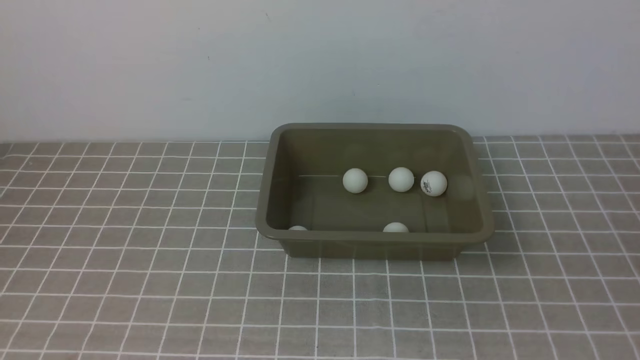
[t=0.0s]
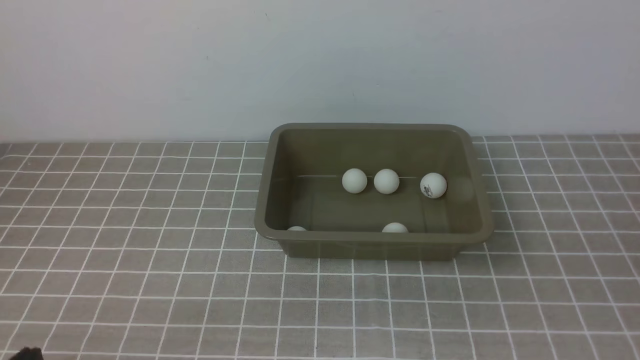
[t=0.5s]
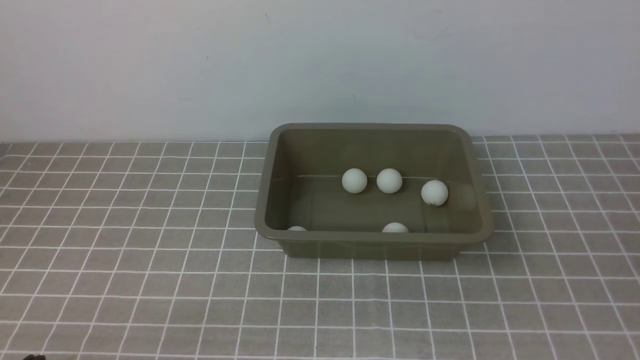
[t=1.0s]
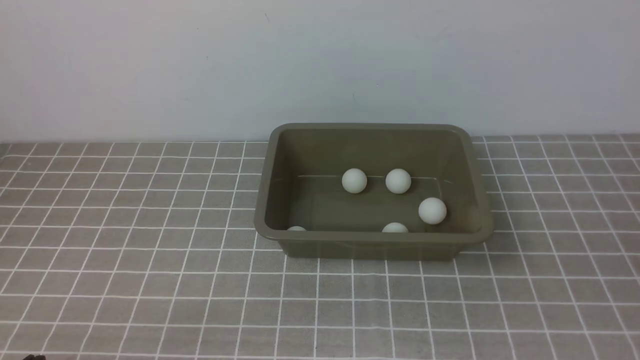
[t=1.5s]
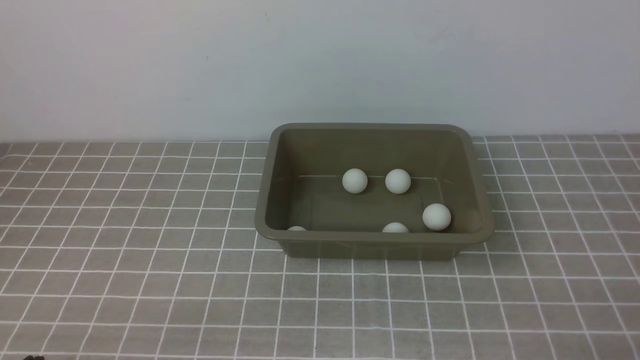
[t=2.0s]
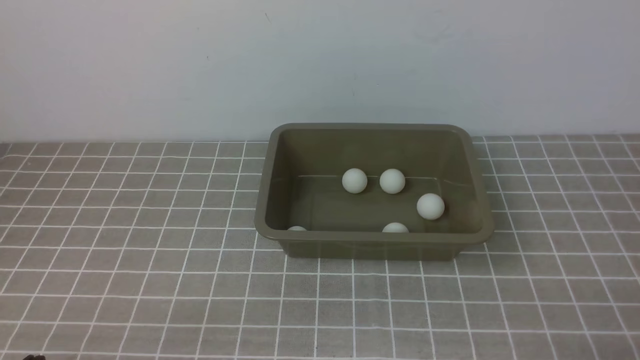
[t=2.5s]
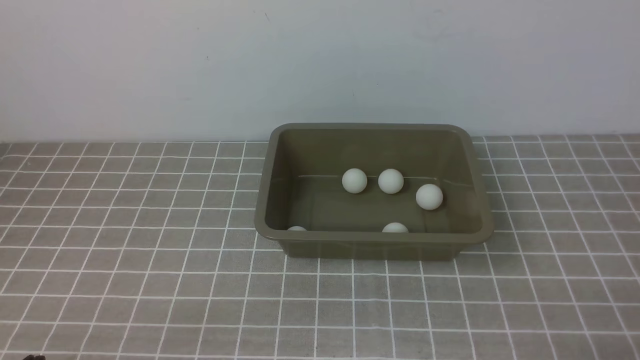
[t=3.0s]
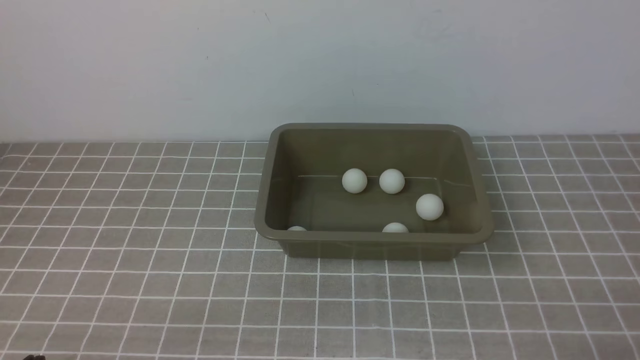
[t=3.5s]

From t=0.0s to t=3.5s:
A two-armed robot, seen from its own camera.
From t=0.0s to t=2.0s: The right gripper is displaced downward by approximately 10 cm.
